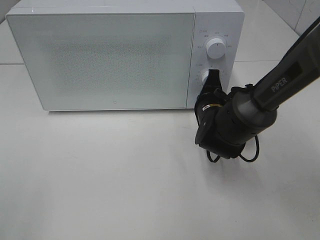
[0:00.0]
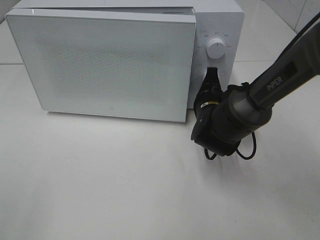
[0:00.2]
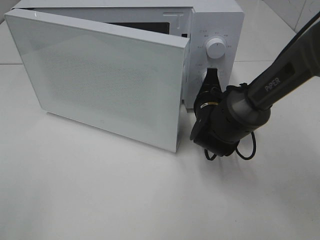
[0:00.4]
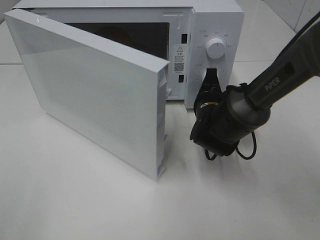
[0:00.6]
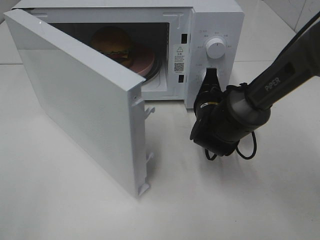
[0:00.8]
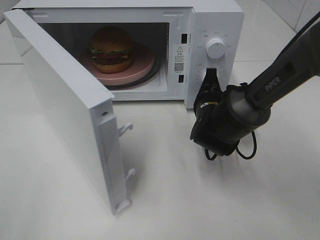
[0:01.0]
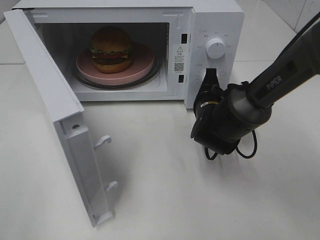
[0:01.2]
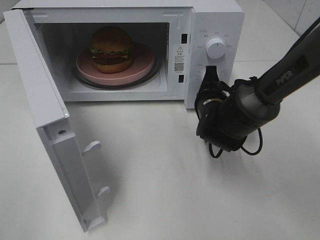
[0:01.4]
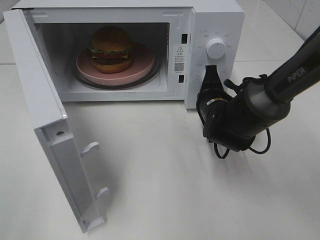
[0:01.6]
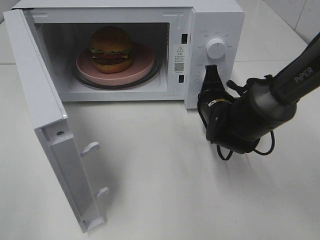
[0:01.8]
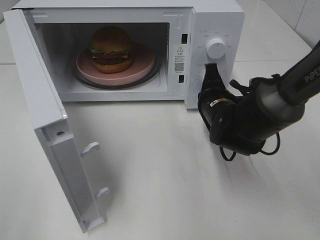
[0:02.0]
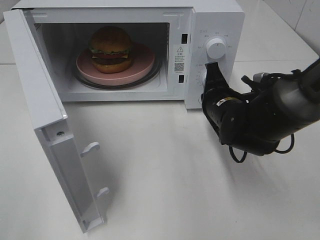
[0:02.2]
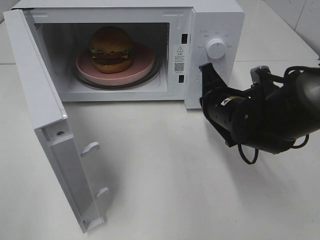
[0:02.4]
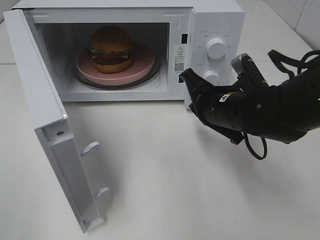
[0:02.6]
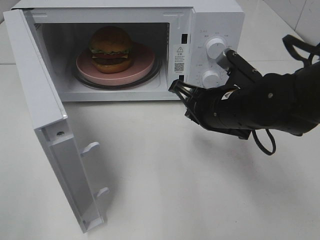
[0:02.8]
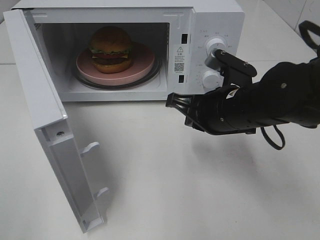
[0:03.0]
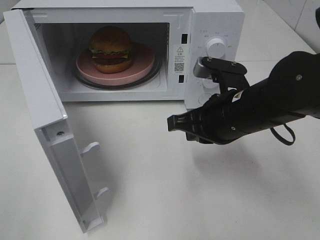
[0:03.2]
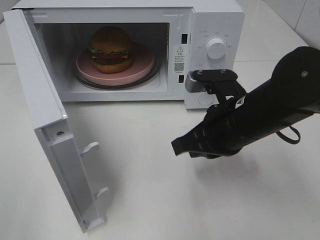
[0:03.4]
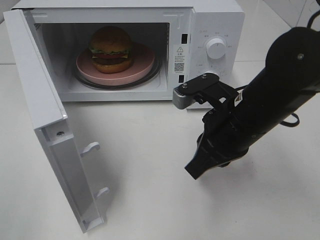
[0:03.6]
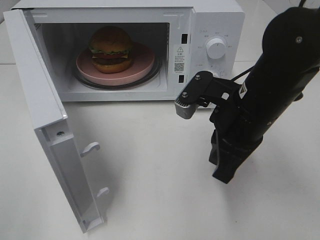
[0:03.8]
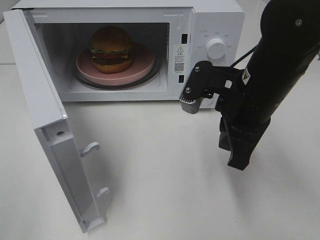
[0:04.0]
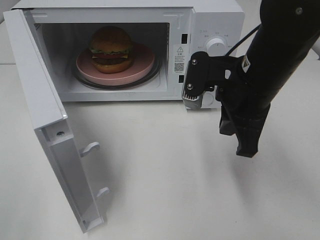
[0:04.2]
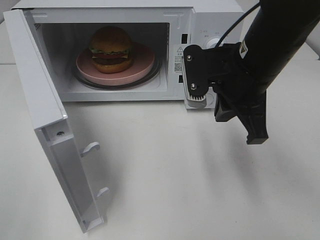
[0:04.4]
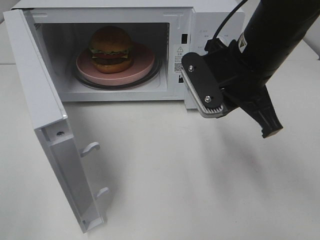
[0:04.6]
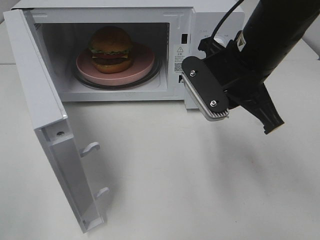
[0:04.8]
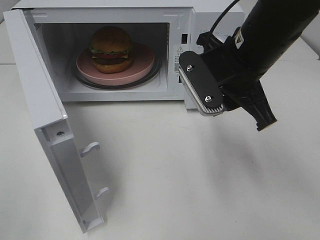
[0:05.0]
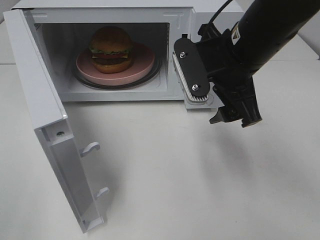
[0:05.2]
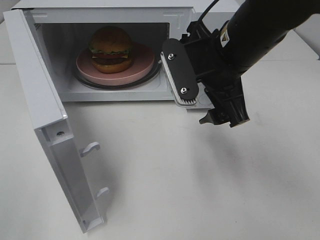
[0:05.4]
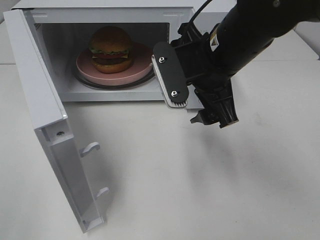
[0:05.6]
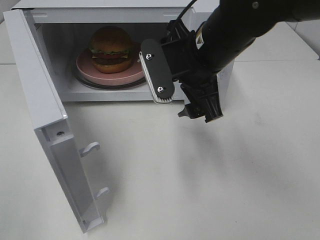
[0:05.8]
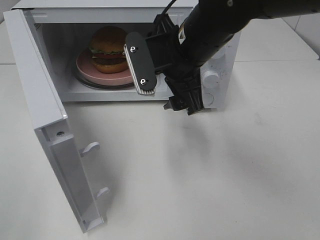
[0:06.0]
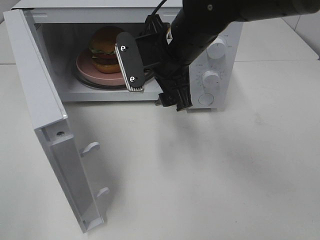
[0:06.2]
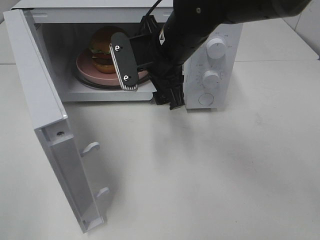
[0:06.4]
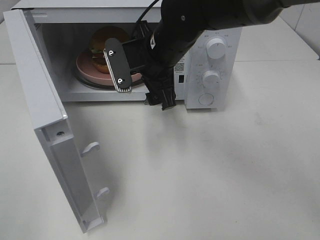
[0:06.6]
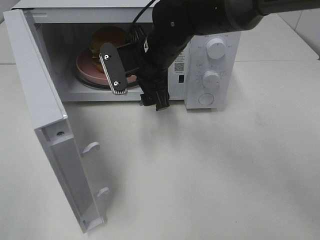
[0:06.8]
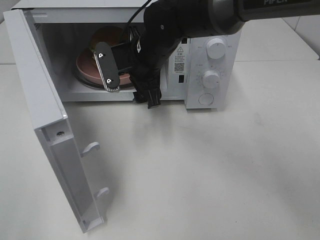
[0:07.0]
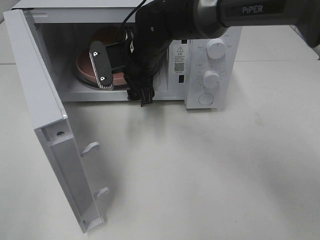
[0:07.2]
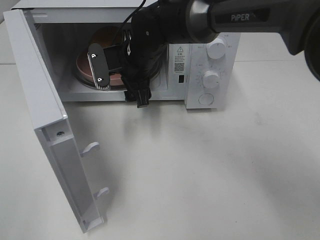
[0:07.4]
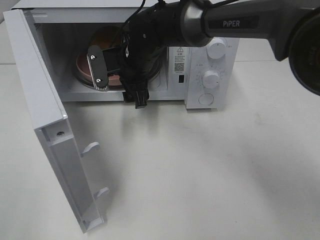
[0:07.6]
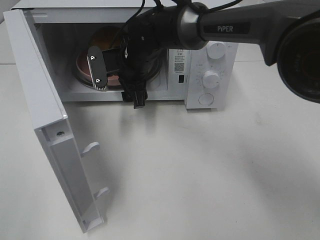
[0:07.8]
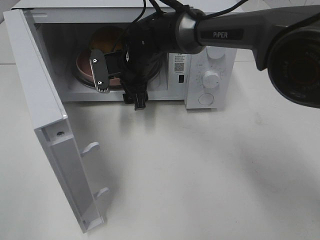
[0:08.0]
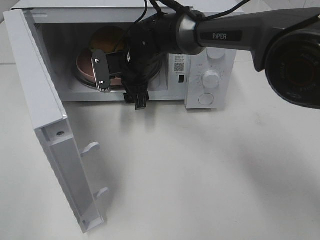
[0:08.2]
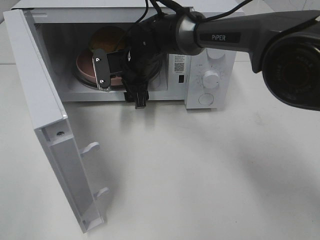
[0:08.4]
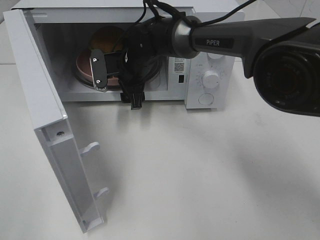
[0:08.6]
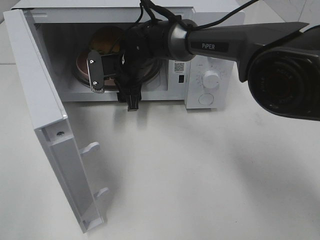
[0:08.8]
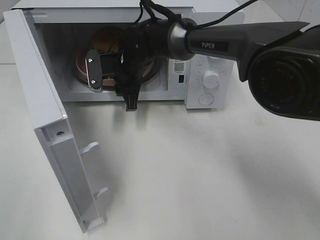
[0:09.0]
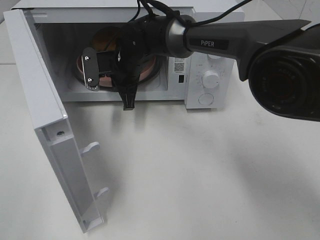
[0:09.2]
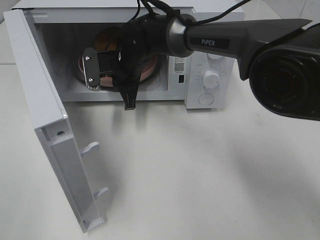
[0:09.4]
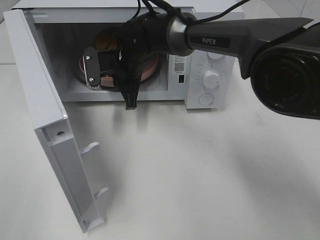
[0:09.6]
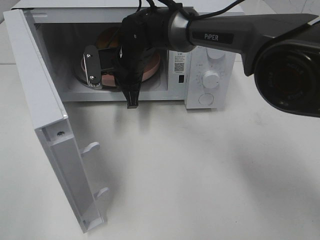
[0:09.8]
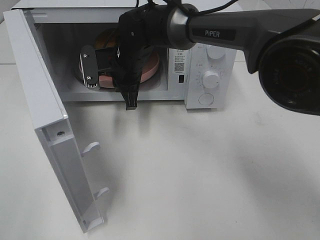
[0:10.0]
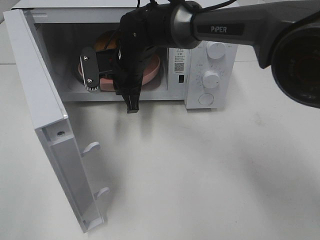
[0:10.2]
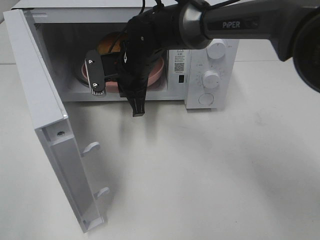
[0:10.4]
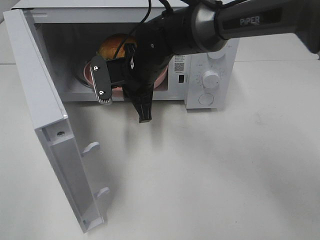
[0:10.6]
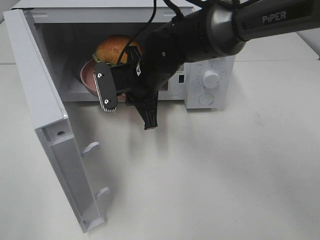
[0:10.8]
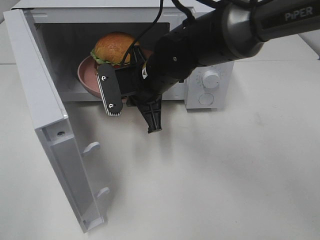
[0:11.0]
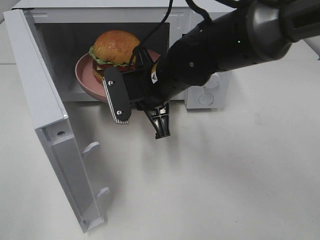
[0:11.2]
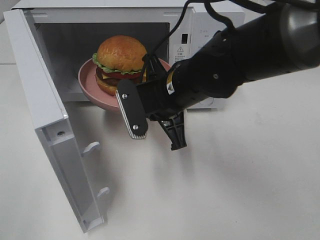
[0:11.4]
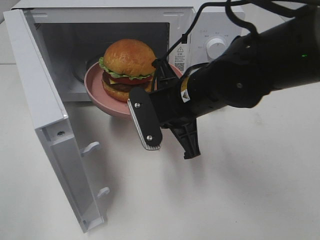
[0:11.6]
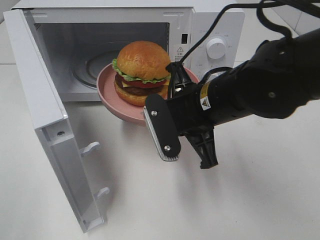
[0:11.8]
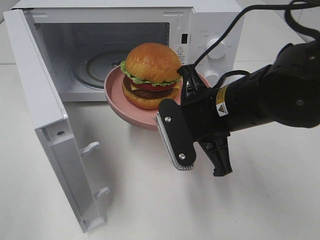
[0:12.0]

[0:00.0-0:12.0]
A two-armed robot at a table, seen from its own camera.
Task of the whole recording: Heat the burger.
Step, 0:00.0 to 0:02.0: Right hand: press the switch.
Step, 0:02.2 to 0:09.2: Right hand: grab the plate with the hamburger.
0:01.6 to 0:03.0: The right gripper shifts about 10 cm backward and upward.
0:03.0 to 0:04.4: The right gripper shifts roughly 10 cm upward.
0:04.4 to 0:06.0: The right gripper goes roughly 5 cm to the left, and opens.
0:06.0 to 0:07.6: The right gripper moves forward, to the left and downward, roughly 15 cm.
0:07.6 to 0:09.0: The right gripper closes.
0:09.0 to 0:10.4: The right gripper shifts by approximately 5 cm.
0:10.4 to 0:12.0: The right gripper heads backward and to the right, covering approximately 20 cm.

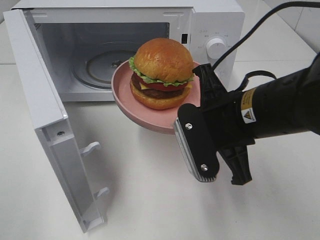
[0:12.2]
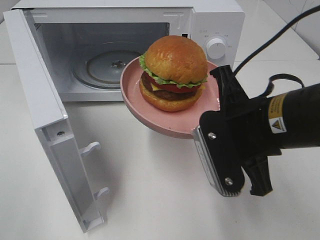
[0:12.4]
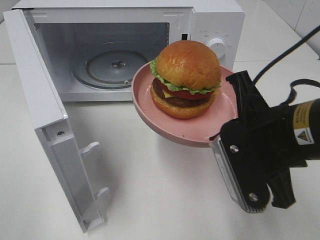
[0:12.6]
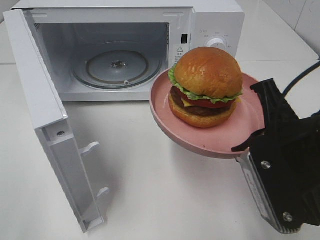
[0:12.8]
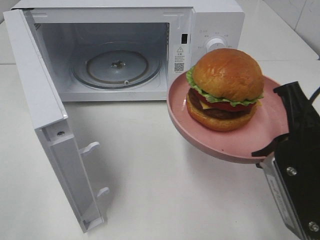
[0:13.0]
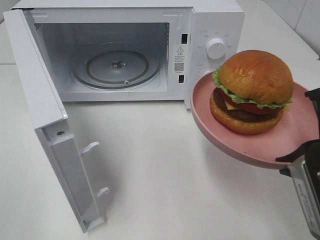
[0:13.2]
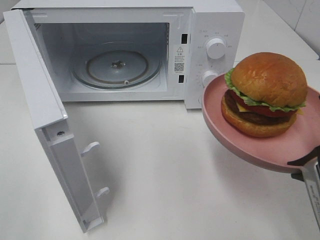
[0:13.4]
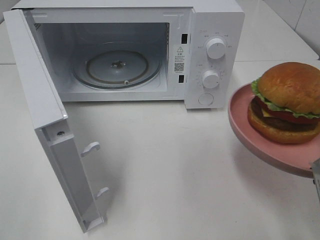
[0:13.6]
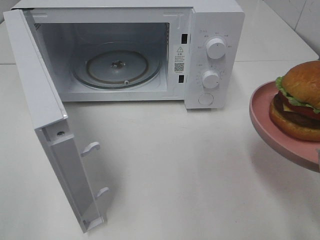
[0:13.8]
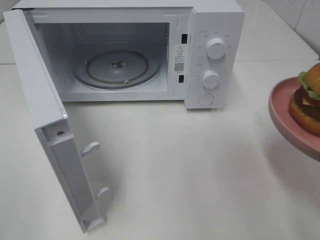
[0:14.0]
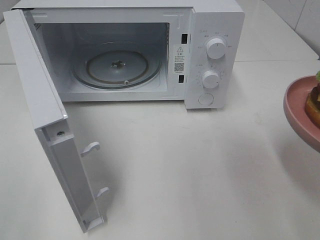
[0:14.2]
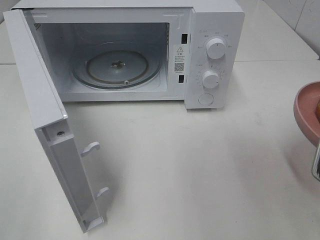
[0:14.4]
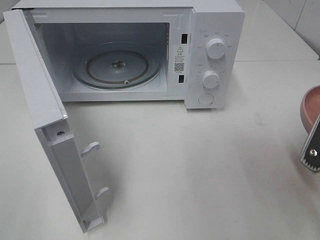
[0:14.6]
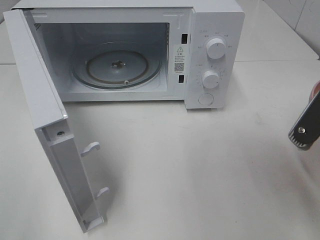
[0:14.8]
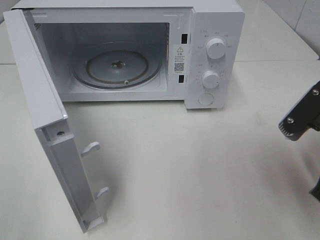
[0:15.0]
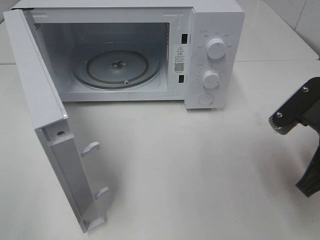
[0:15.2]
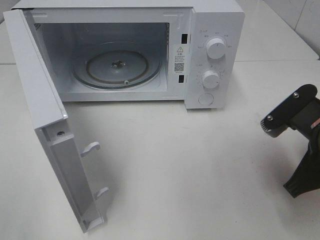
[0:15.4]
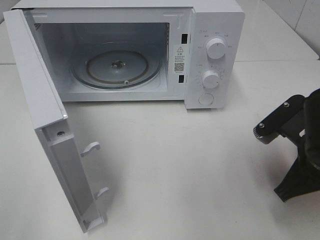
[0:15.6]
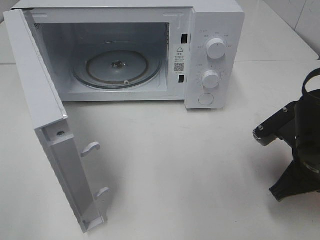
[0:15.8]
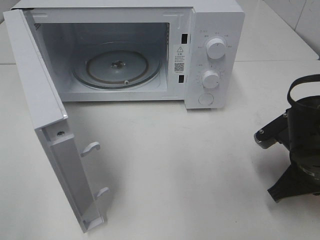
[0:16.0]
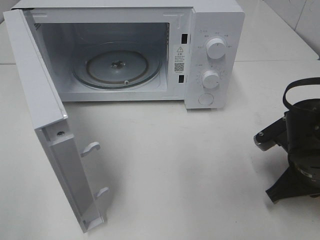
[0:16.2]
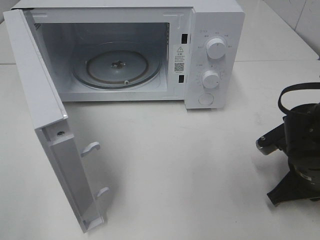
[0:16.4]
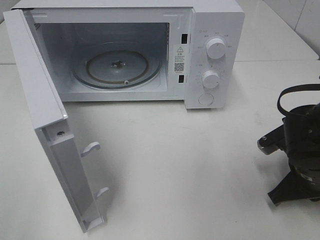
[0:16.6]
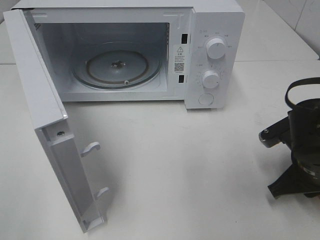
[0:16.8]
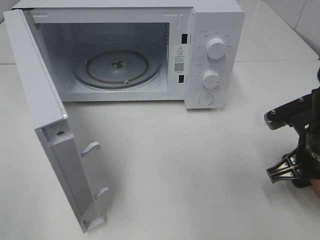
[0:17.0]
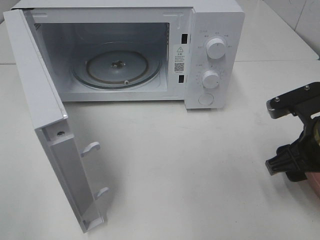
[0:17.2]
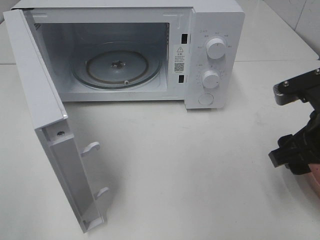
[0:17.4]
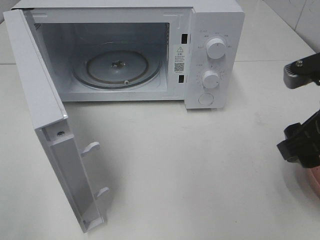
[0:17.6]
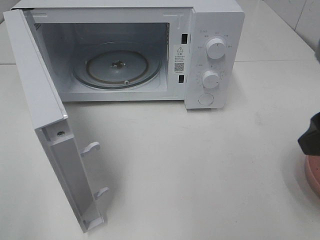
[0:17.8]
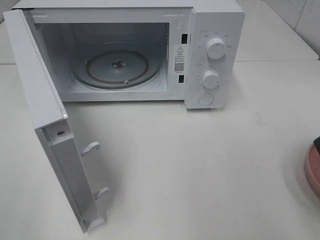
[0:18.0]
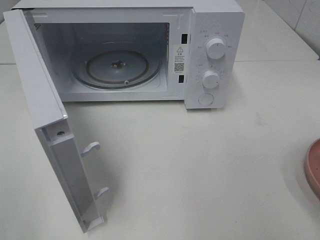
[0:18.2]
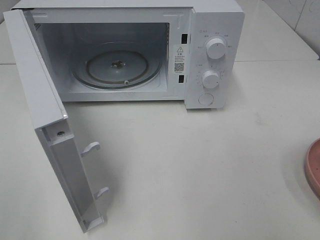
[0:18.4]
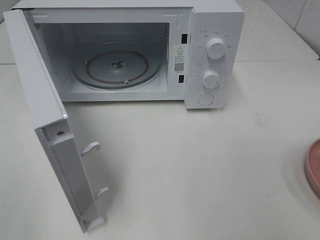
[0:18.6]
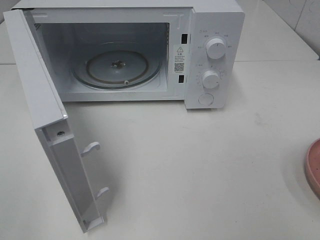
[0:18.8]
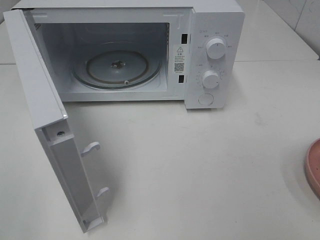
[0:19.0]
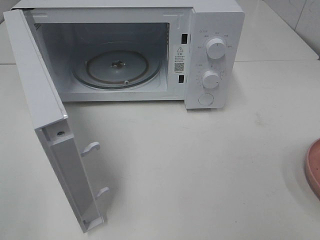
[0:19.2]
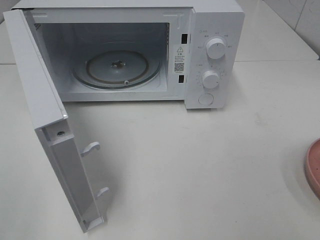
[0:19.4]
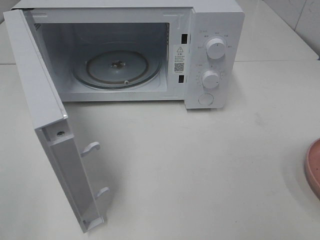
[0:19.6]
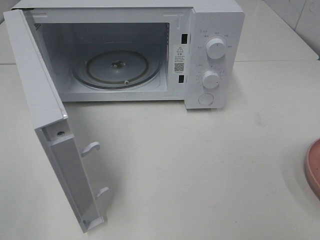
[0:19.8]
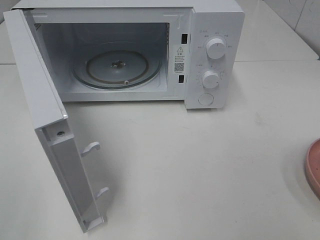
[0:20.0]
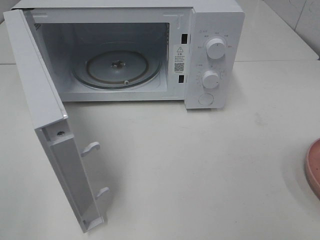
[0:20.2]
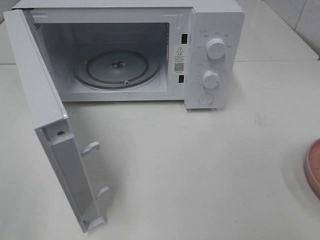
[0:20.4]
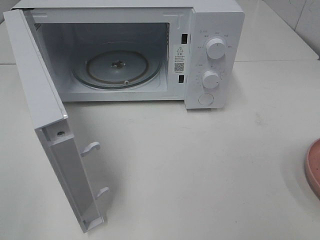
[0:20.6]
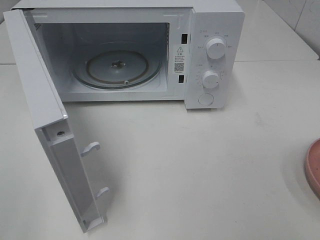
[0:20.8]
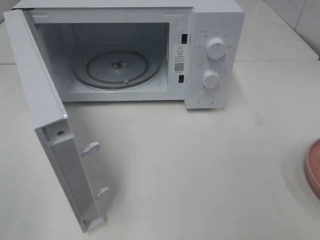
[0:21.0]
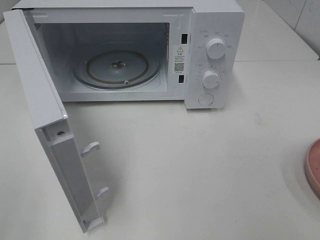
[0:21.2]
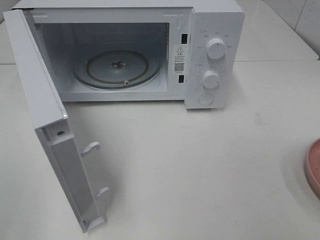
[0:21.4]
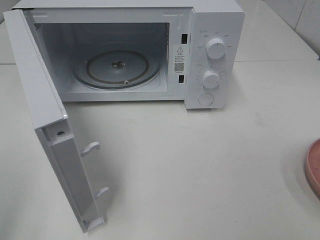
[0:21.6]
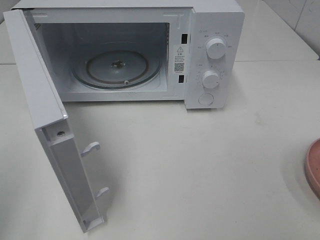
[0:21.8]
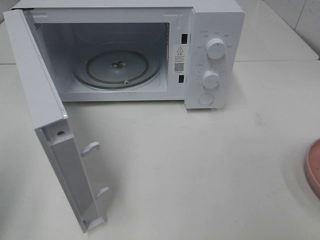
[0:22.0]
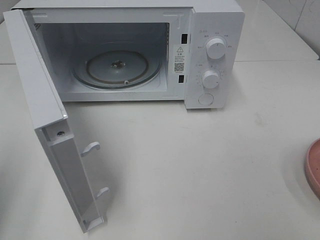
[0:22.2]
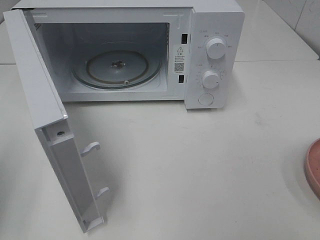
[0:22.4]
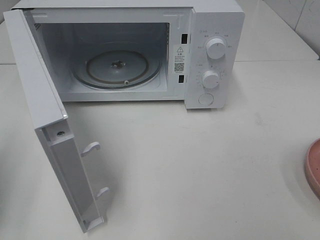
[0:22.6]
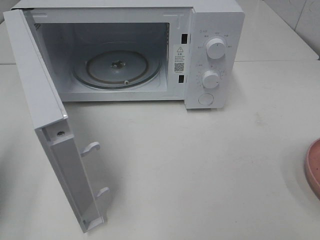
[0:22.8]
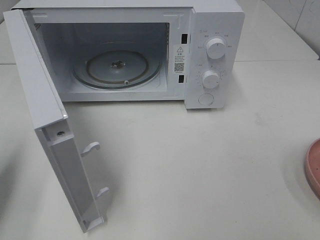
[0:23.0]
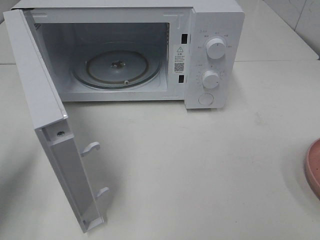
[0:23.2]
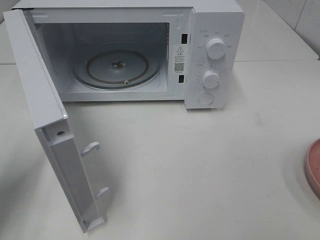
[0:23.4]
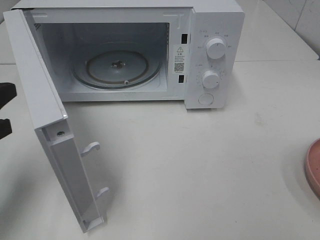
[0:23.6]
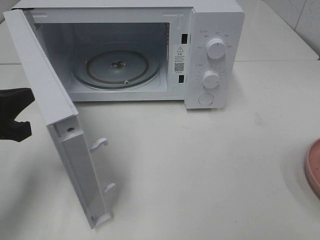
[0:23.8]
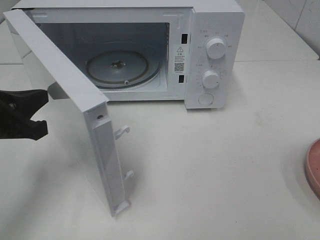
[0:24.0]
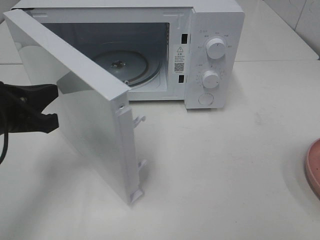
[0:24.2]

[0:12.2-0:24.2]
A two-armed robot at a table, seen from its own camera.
Task of the whole recording: Heat the burger.
Step, 0:12.2 to 0:16.8: Right hand: place the plate on the table.
0:12.2 to 0:13.8: The right gripper shifts some 15 cm to the right and backward.
0:13.8 to 0:15.2: The right gripper is displaced forward by approximately 5 cm.
0:15.2 to 0:16.6: The right gripper shifts some 10 cm downward.
0:16.6 to 0:18.2: The right gripper is displaced upward and backward by roughly 25 cm, and opens.
0:19.8 to 0:21.2: Neither gripper changes place.
0:22.6 to 0:24.2: The left gripper travels to the right, forward and downward by approximately 15 cm.
